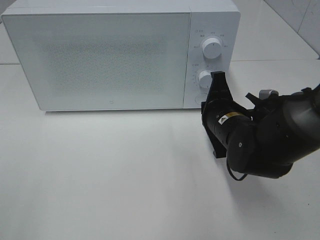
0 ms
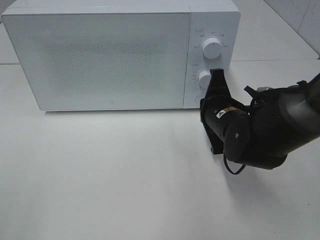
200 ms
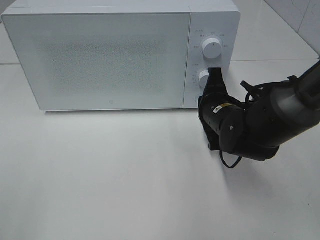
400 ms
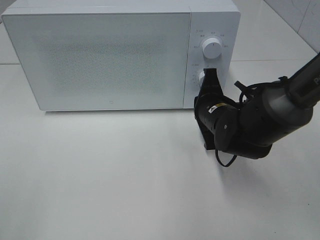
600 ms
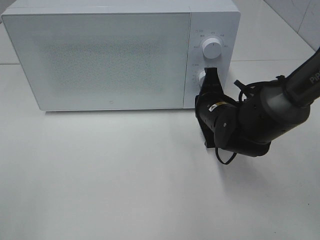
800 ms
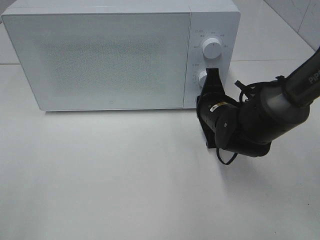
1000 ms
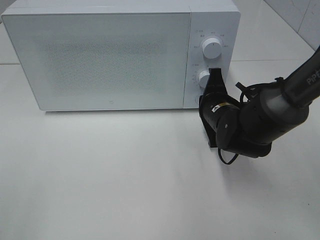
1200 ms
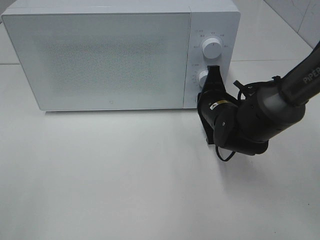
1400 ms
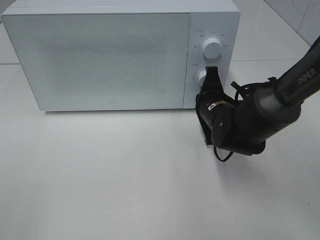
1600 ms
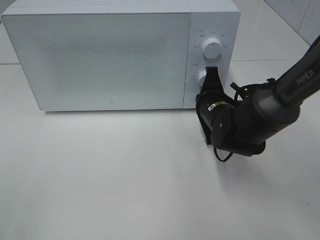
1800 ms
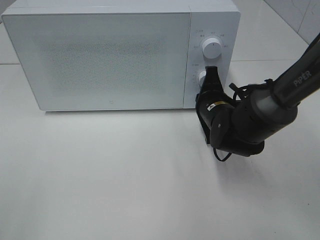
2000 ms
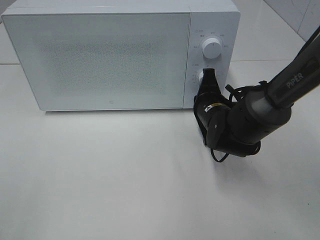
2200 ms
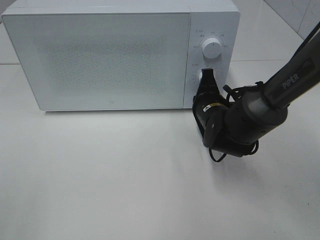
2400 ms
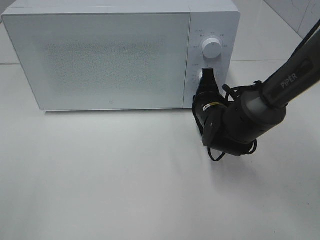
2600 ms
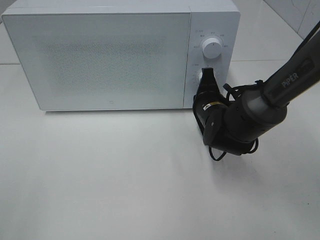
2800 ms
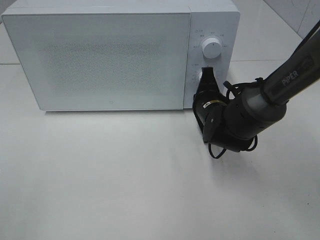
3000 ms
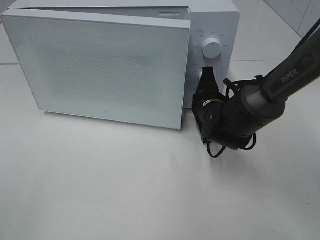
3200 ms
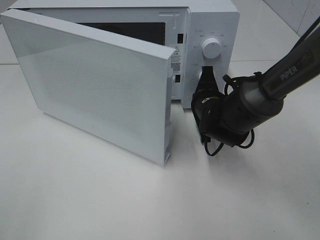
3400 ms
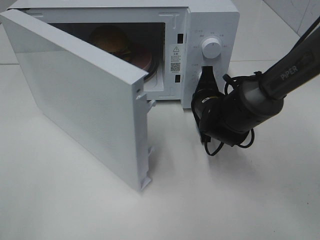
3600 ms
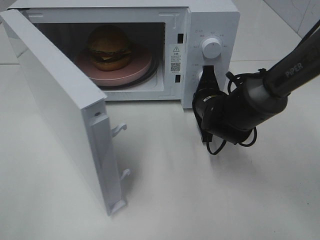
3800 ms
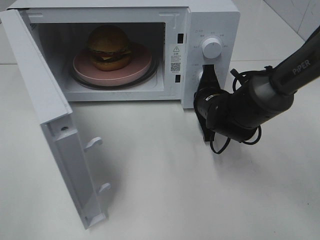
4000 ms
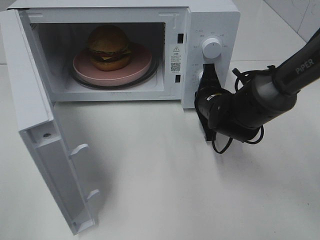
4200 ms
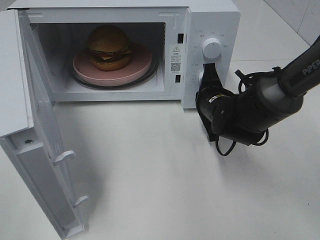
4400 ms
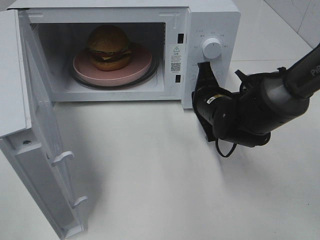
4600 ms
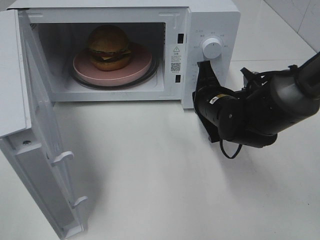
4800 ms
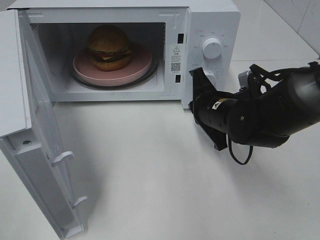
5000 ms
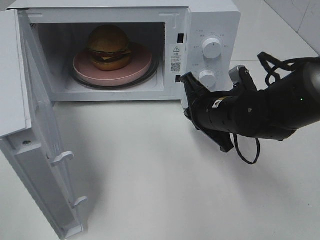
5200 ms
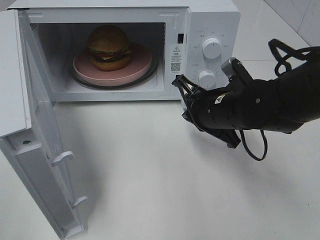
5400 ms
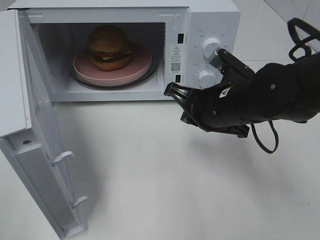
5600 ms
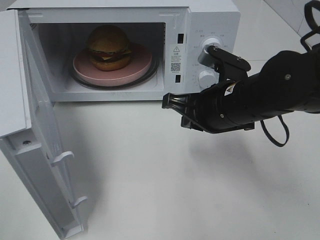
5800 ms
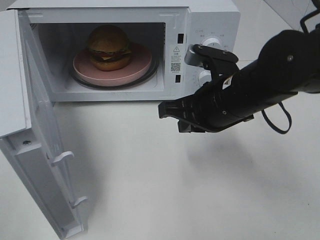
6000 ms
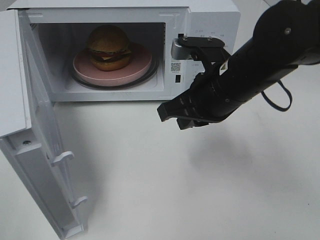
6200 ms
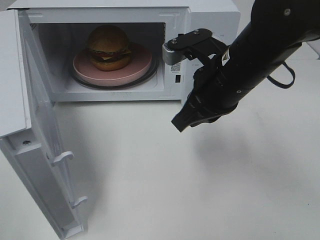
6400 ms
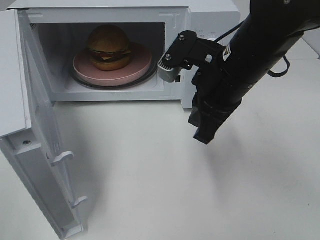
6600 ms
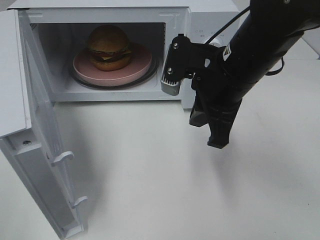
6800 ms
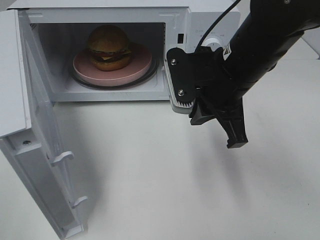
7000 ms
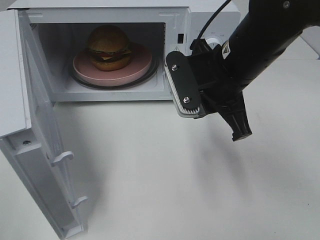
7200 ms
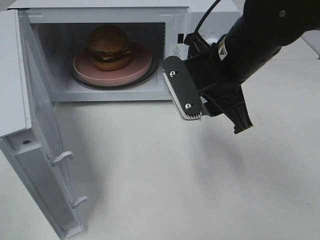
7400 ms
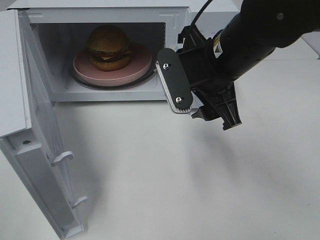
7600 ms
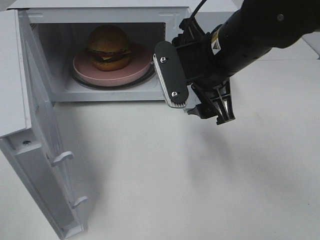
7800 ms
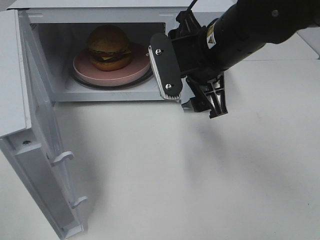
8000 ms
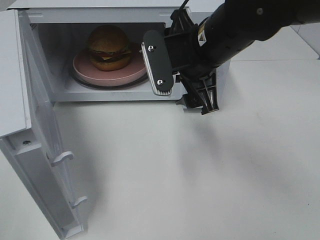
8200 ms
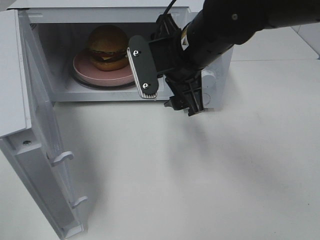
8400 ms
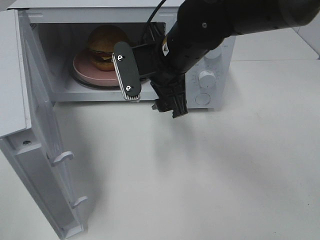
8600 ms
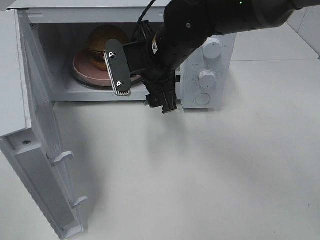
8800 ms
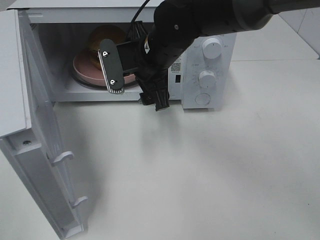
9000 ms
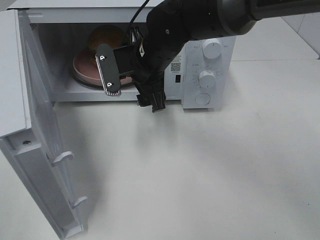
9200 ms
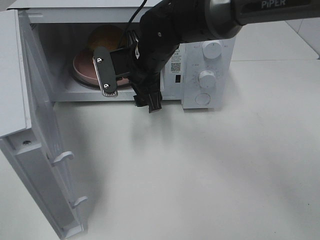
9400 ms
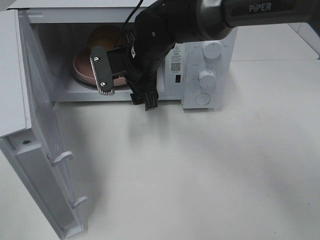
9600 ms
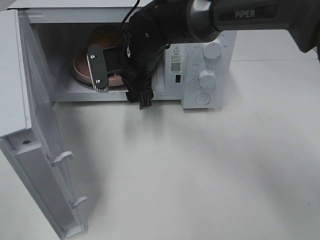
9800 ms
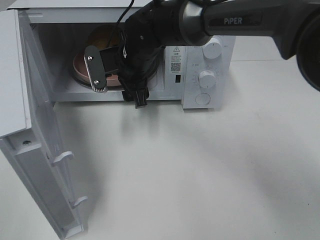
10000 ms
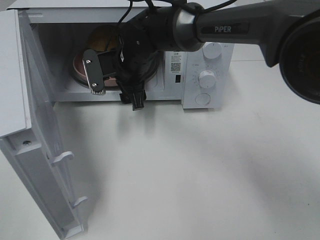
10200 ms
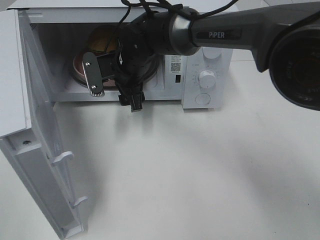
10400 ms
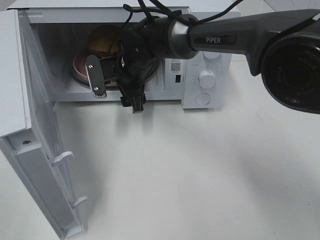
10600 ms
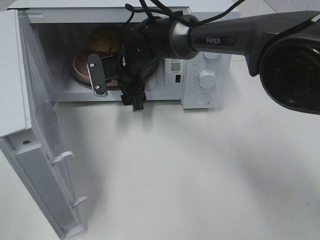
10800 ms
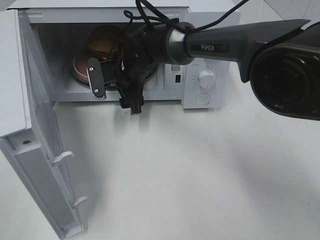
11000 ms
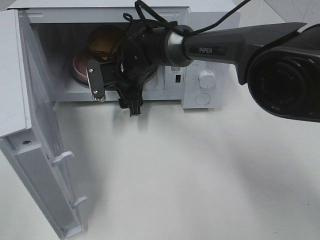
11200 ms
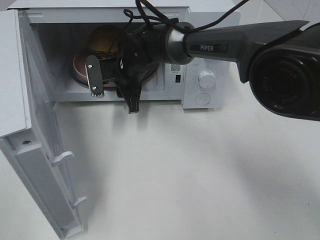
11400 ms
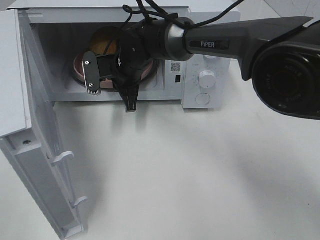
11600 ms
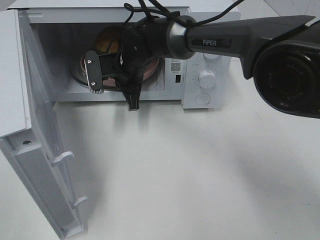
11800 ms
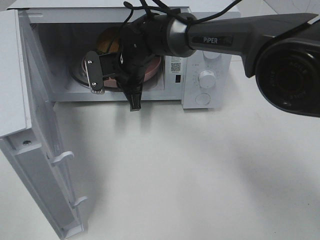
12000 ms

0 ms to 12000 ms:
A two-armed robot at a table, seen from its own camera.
Task of the whole recording: Heat the burger.
Step, 0 ms to 4600 ms: Right hand: press the switch.
Step, 4800 ms to 11600 ms: Right hand: grab the plate with the hamburger.
0 ms to 1600 ms: The right gripper is displaced forward by roughly 5 cm.
1600 ms to 3000 ms: There are only small adjustments of the grippers.
4400 ms to 6000 ms: The right gripper heads upward and backward, covering roughly 15 cm.
6000 ms to 7600 ms: The right gripper heads upward, covering some 5 cm, and opens its fingers.
7600 ms to 9000 ms: The right gripper shifts roughly 10 cm to the left and forward.
9000 ms to 10400 ms: The right gripper is displaced forward and downward by about 10 cm.
10400 ms to 12000 ms: The right gripper closes up.

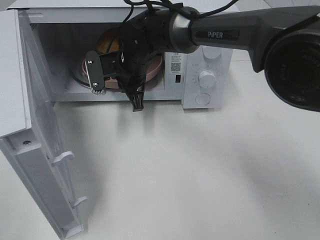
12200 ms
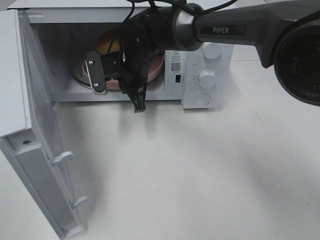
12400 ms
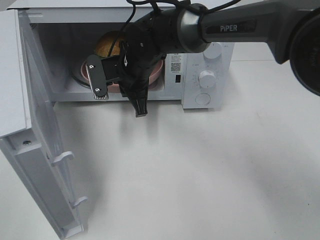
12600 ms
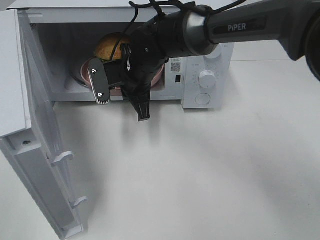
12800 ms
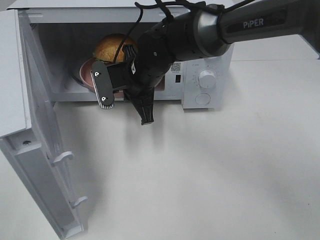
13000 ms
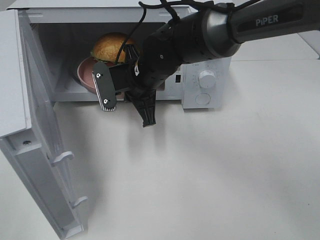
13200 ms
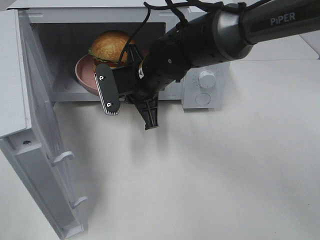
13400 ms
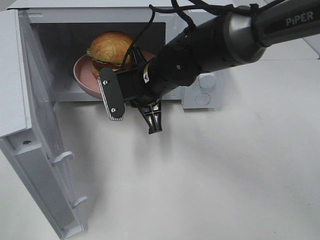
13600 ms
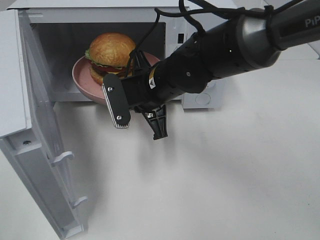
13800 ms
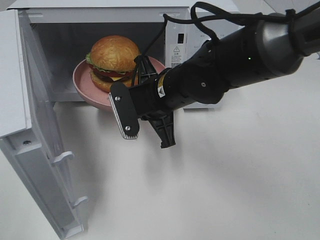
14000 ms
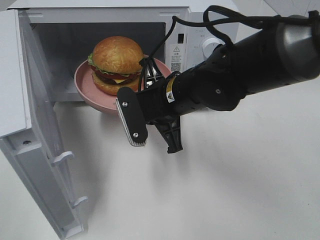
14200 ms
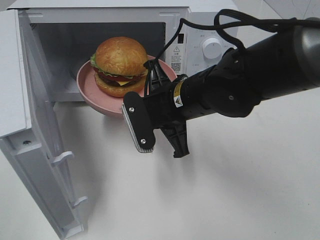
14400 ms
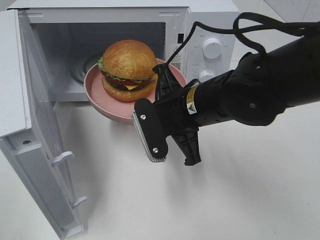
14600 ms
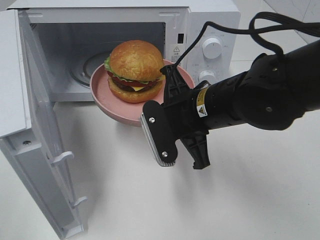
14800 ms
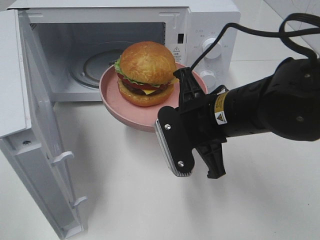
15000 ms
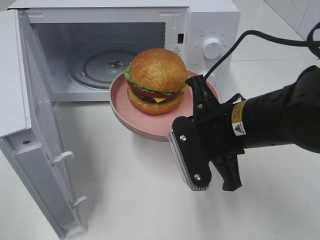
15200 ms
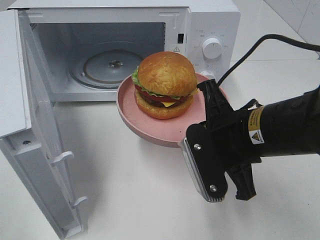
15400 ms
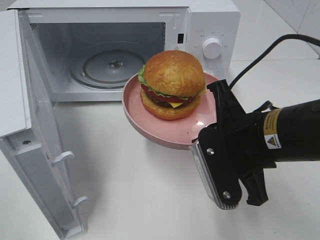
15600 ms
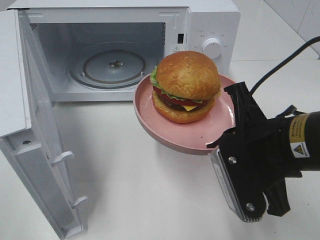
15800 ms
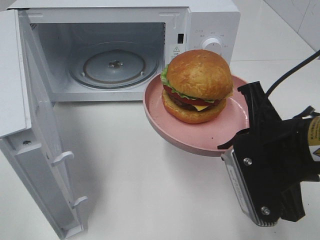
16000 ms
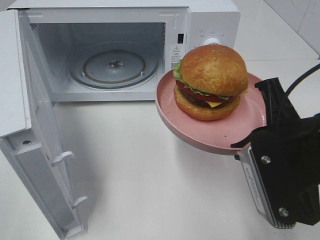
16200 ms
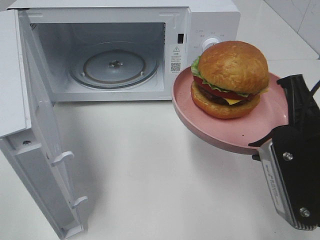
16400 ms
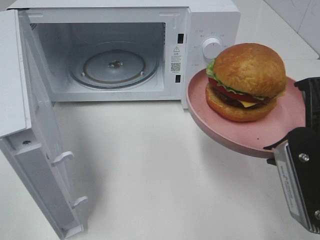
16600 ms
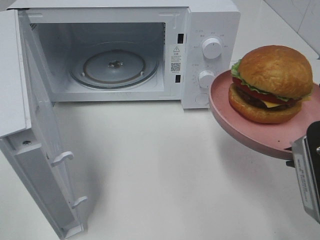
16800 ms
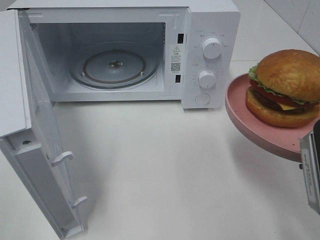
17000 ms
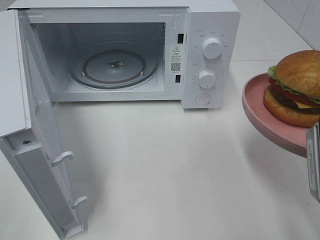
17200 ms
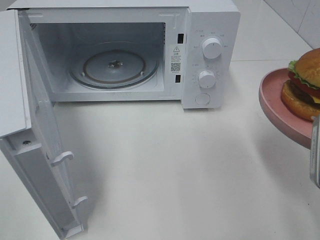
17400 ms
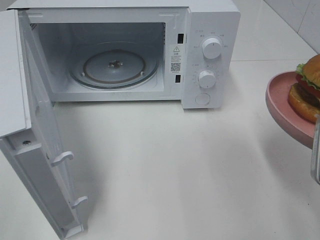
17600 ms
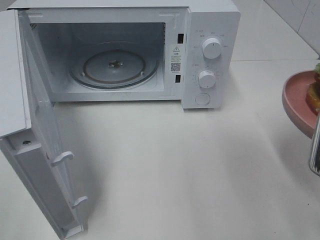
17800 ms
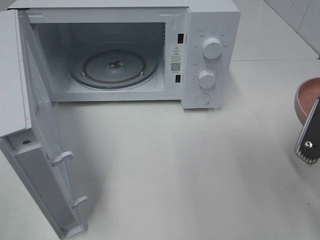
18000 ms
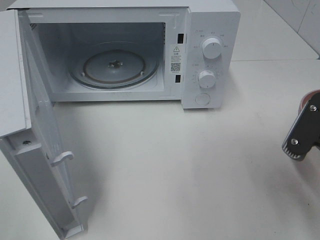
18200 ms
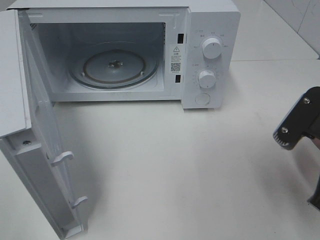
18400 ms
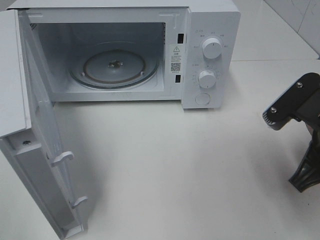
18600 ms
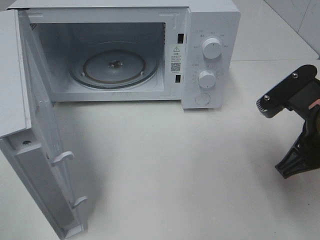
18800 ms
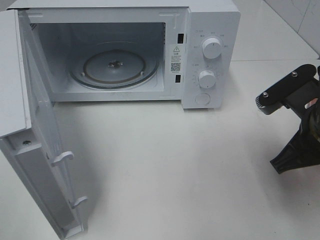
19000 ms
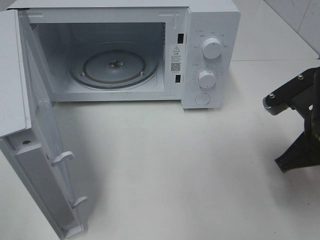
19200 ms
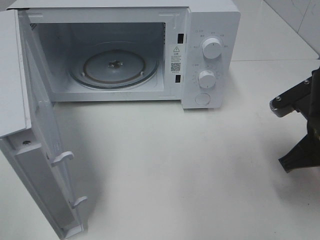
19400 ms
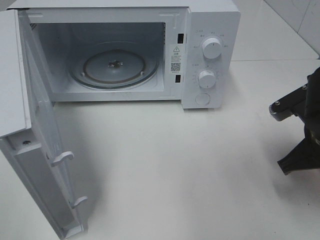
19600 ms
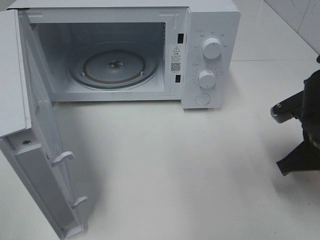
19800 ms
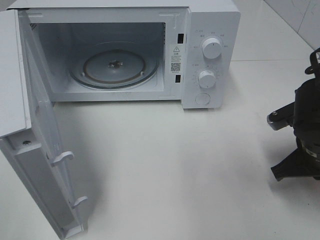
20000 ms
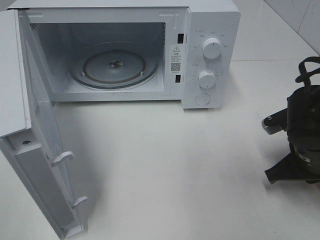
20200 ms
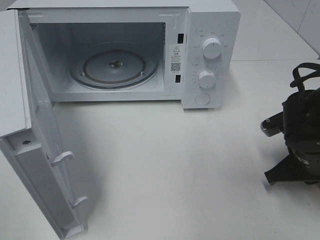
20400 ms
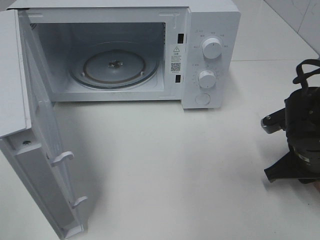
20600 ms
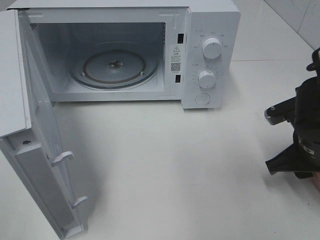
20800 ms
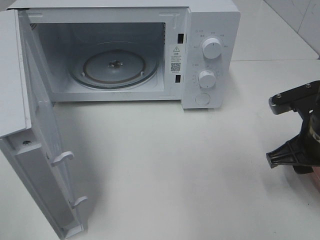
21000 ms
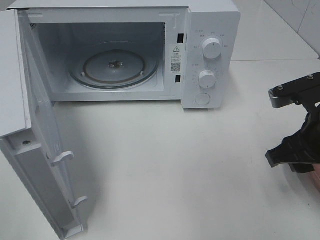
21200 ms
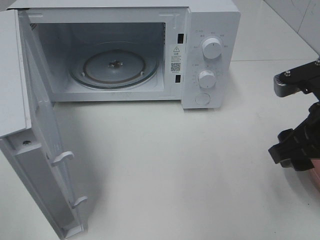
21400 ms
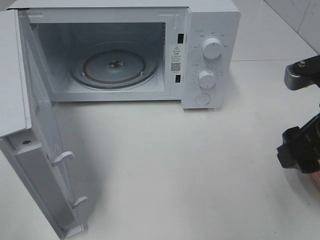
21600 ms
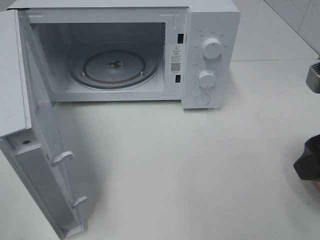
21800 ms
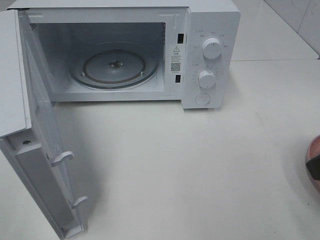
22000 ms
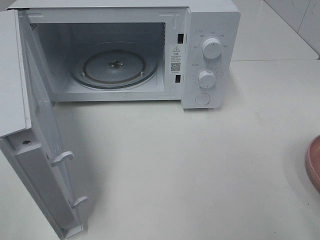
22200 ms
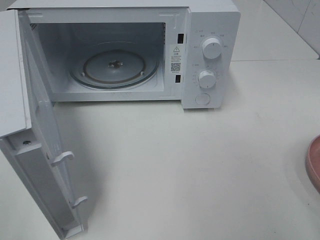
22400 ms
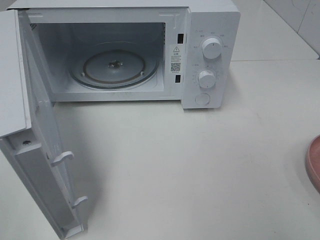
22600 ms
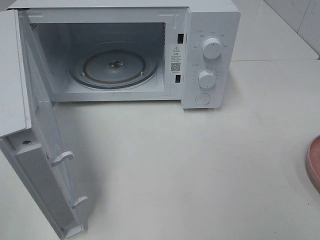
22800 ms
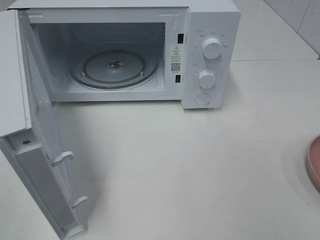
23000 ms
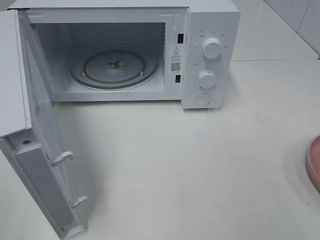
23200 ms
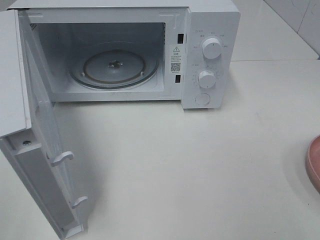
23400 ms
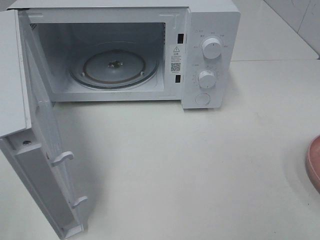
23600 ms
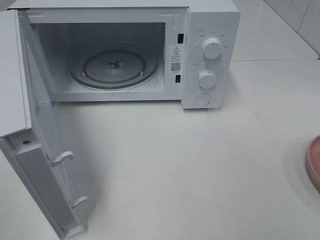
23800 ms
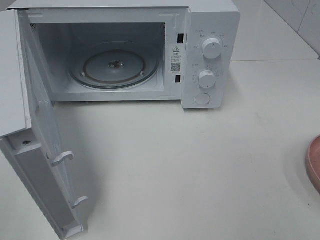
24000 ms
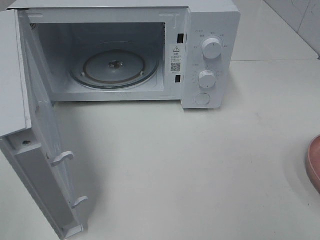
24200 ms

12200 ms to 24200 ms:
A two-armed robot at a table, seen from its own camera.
Task of the whole recording: Heat the burger.
Step, 12200 ms to 20800 ms: Right hand: place the plate on the table.
12200 ms to 13800 ms: The right gripper heads backward and to the right, covering about 10 cm.
13800 ms to 15200 ms: The right gripper heads backward and to the right, covering approximately 15 cm.
15200 ms to 16600 ms: The right gripper heads to the right, backward and upward, covering some 15 cm.
18200 ms to 19800 ms: The right gripper moves forward and downward, some 10 cm.
19800 ms to 21200 ms: The right gripper opens its fingers.
21200 ms to 22600 ms: The right gripper heads backward and upward, covering some 20 cm.
